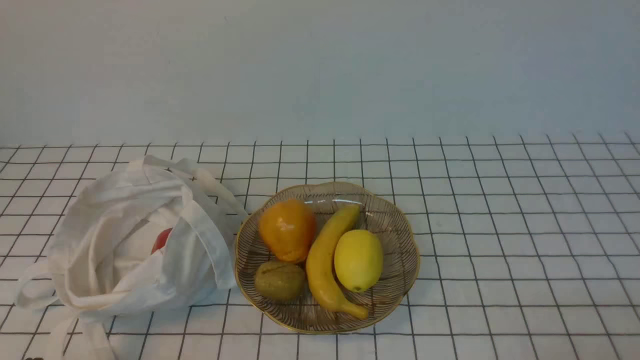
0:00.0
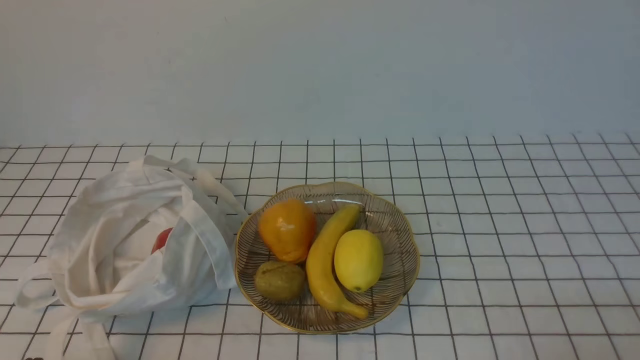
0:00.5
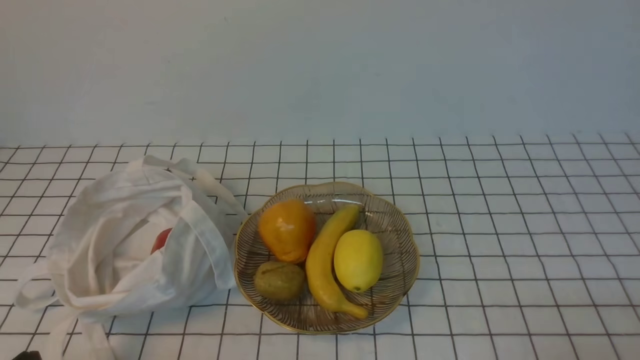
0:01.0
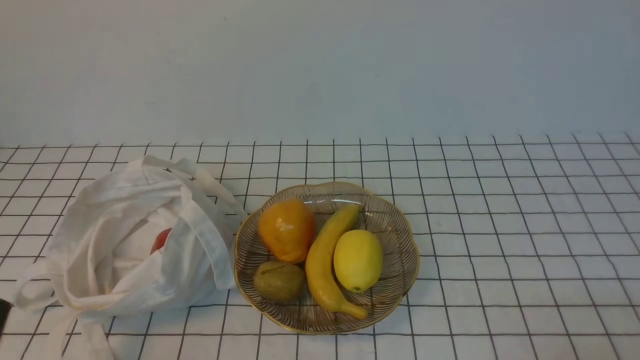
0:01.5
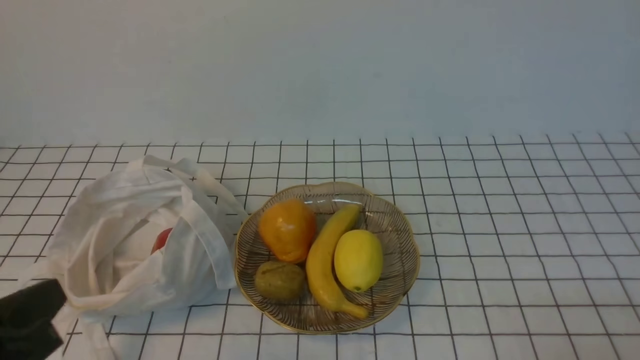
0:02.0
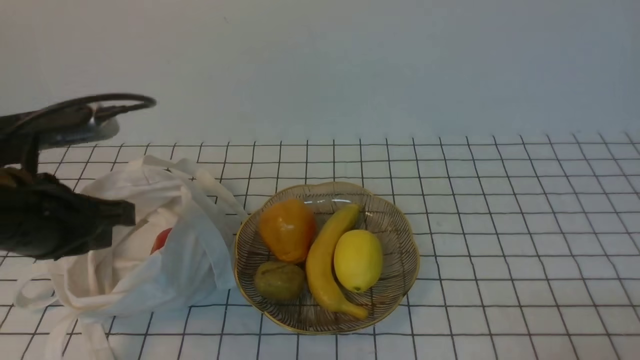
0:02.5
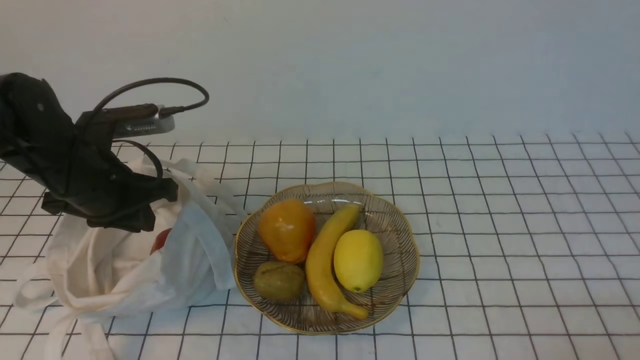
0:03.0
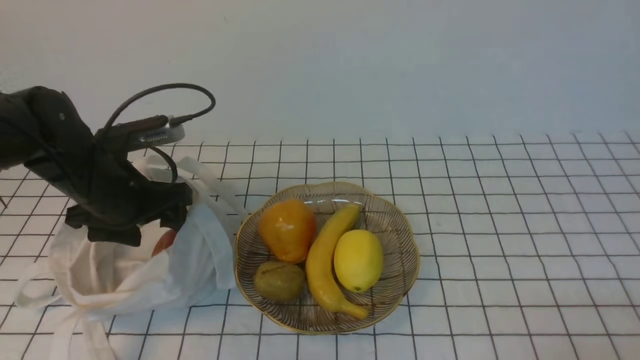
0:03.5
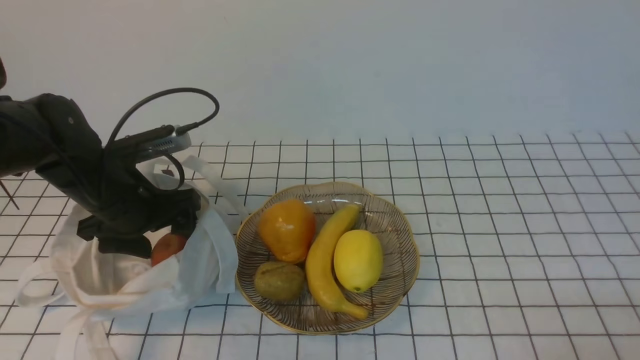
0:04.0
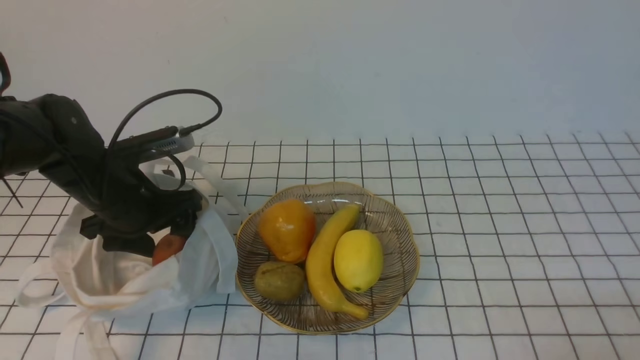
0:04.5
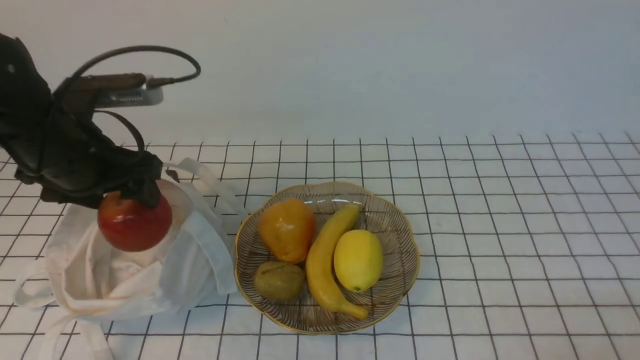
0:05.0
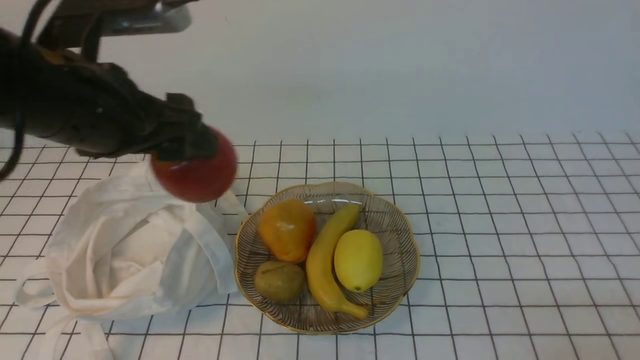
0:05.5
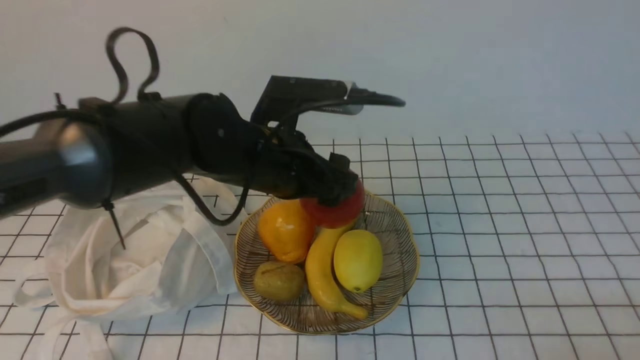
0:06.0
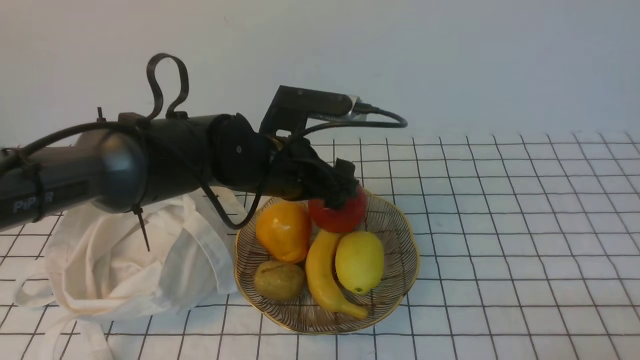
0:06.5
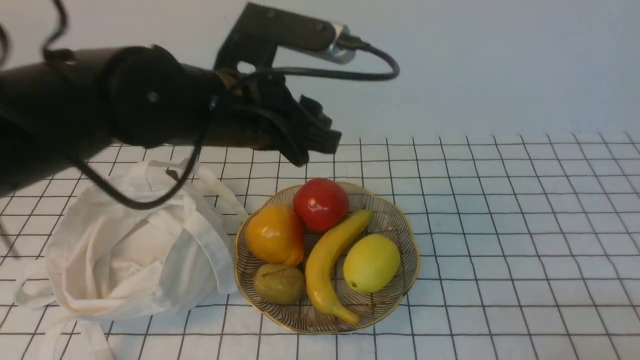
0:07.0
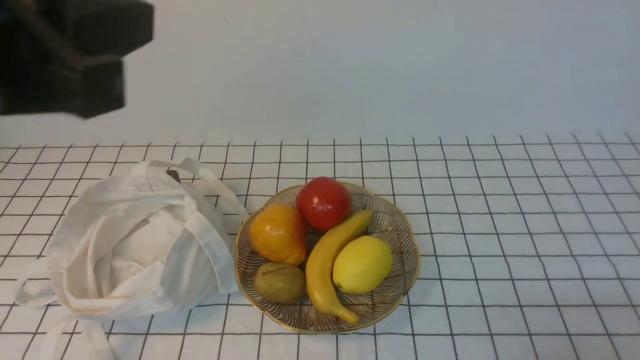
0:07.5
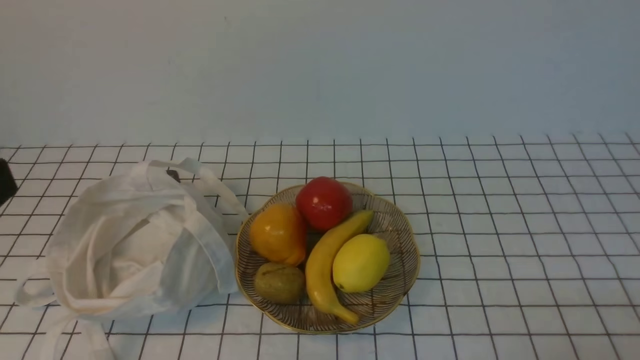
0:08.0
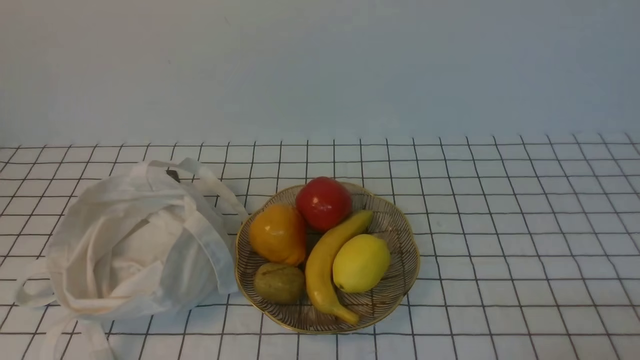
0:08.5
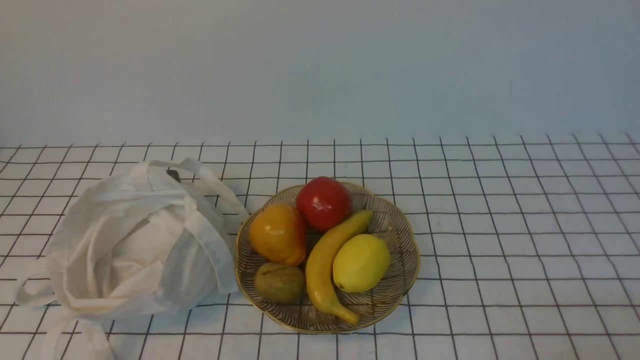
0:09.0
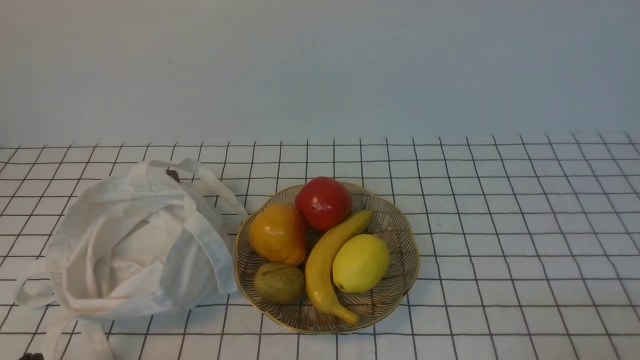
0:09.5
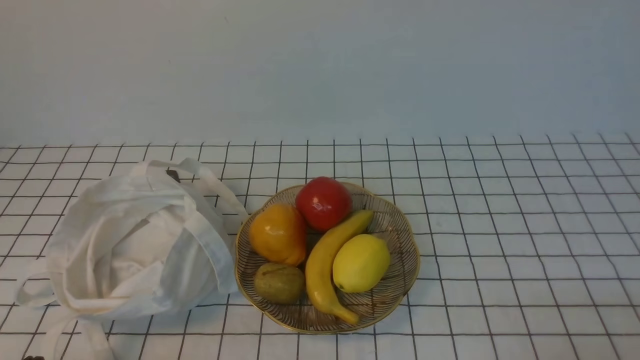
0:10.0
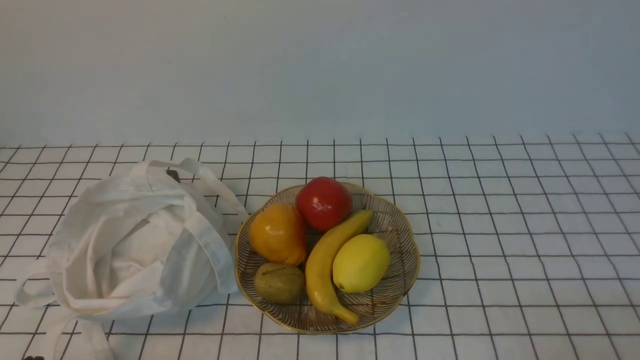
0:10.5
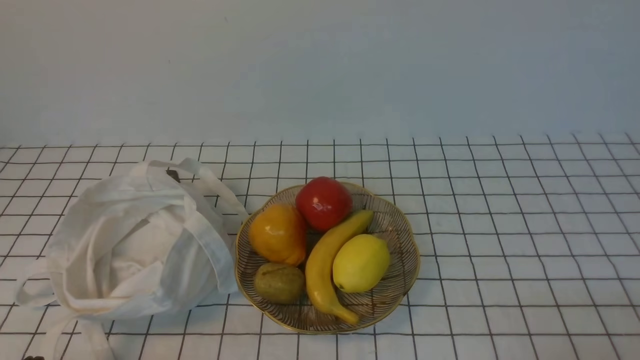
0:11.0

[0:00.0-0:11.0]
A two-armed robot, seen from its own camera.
Step, 0:00.0 to 0:04.5: use the left arm to grab an apple from the bag.
Step, 0:05.0 to 0:06.5: use the left arm to put the apple into the empty plate on the right.
0:02.0 to 0:03.5: The left gripper is displaced forward by about 25 cm, and opens its fingers.
0:03.5 to 0:05.5: The left gripper travels upward and backward by approximately 15 cm.
0:05.5 to 0:07.5: The left gripper shifts about 15 cm backward and upward, and closes up.
0:07.5 to 0:09.0: The left gripper is displaced downward, backward and to the left by roughly 20 cm.
